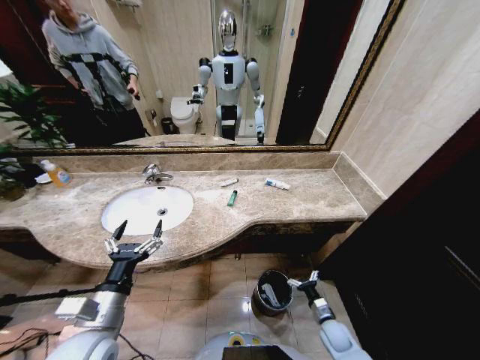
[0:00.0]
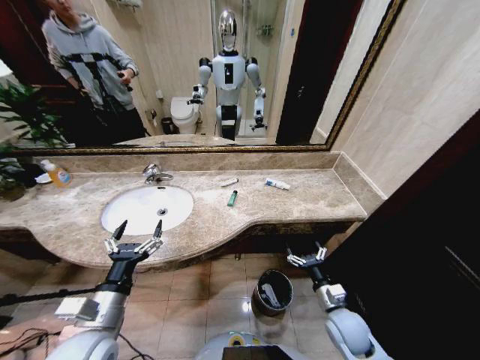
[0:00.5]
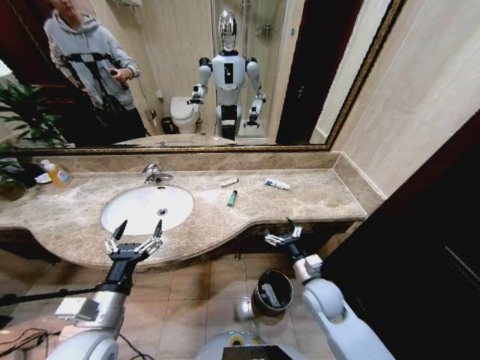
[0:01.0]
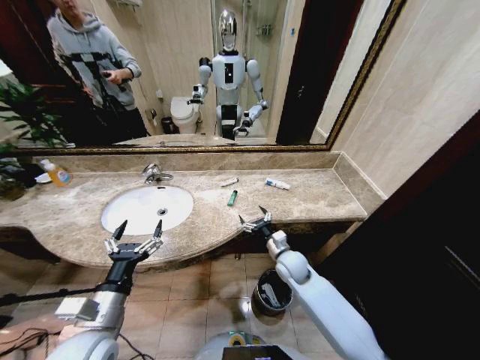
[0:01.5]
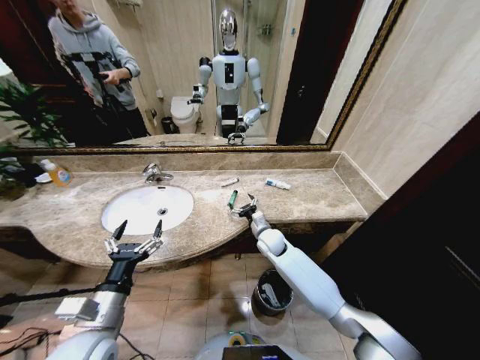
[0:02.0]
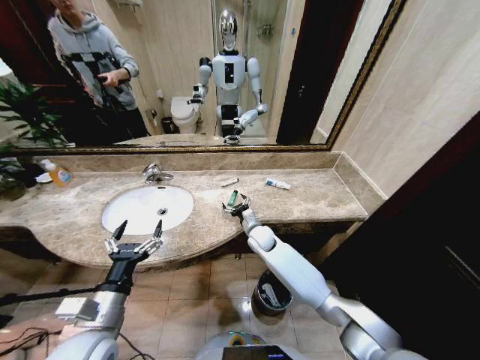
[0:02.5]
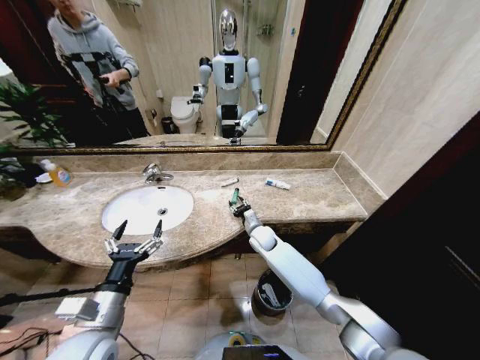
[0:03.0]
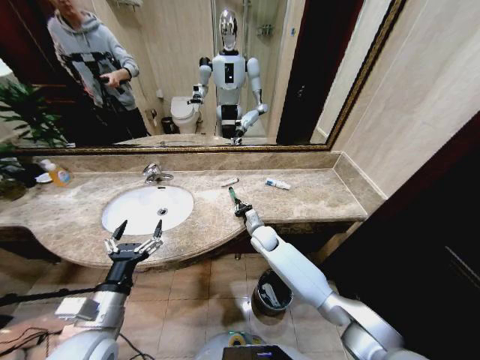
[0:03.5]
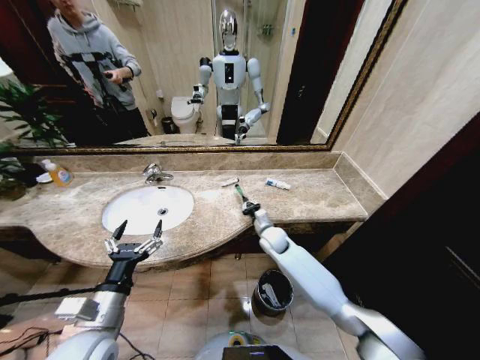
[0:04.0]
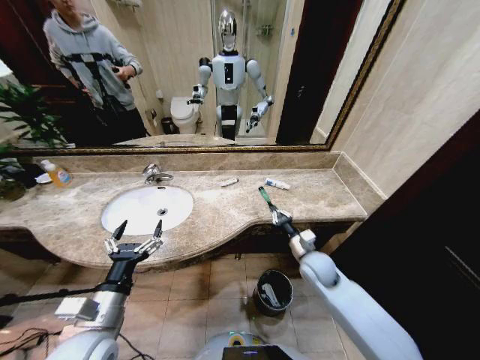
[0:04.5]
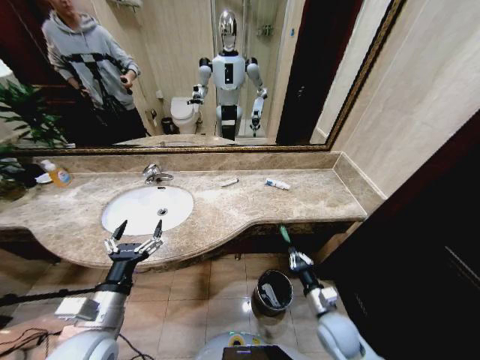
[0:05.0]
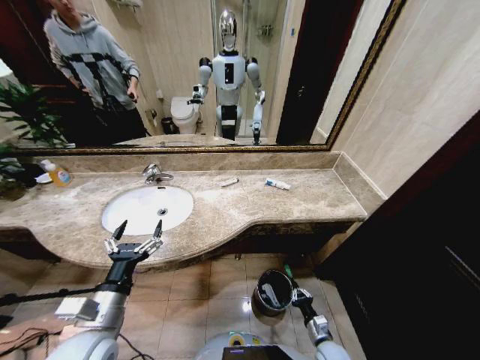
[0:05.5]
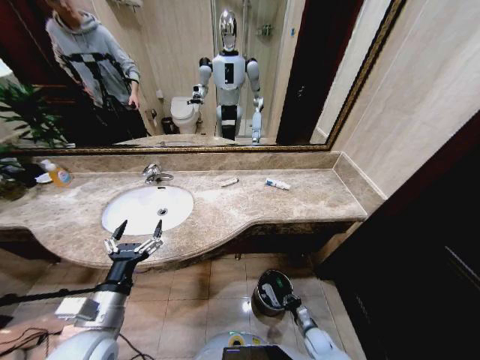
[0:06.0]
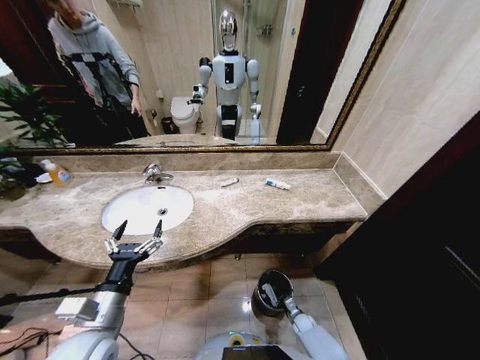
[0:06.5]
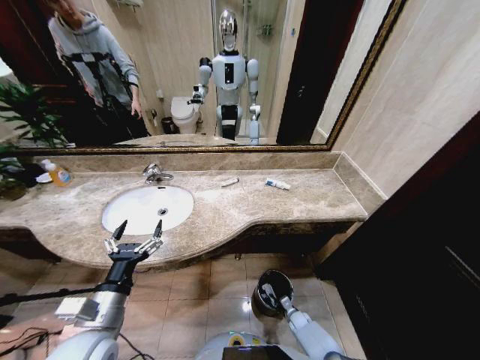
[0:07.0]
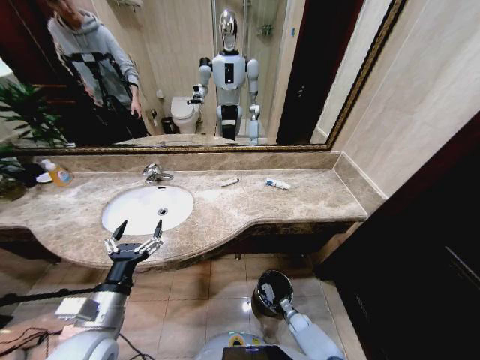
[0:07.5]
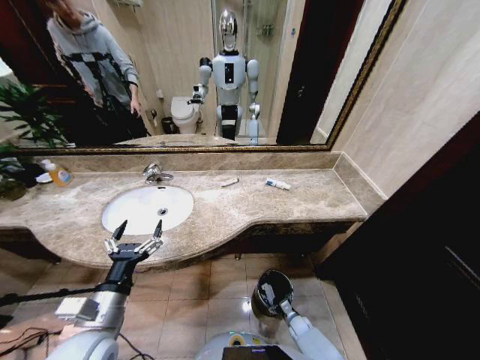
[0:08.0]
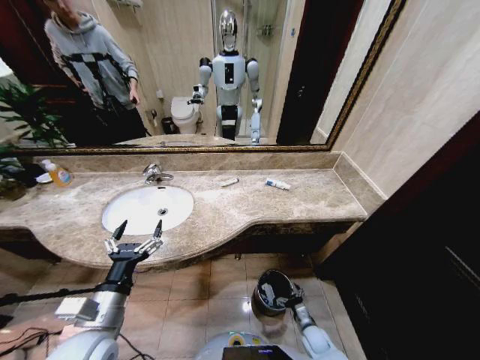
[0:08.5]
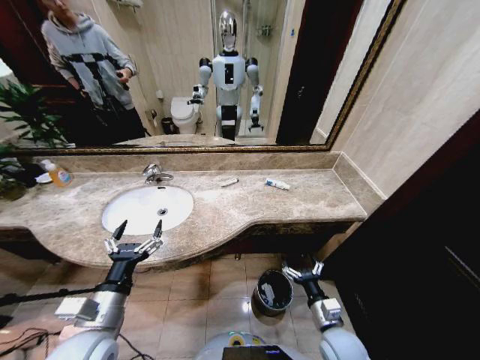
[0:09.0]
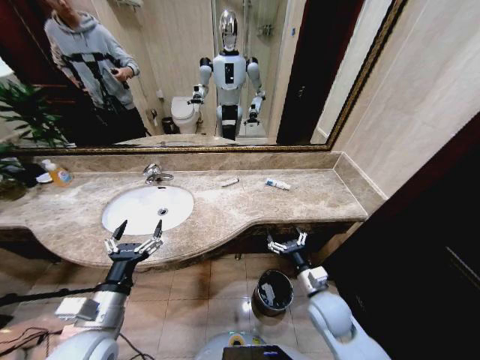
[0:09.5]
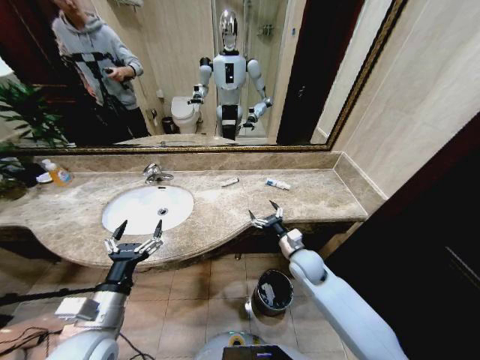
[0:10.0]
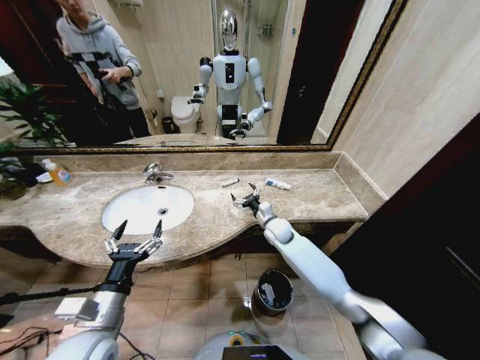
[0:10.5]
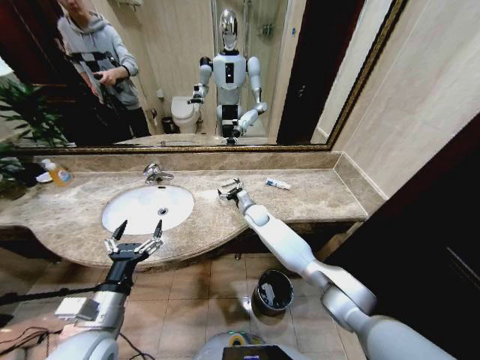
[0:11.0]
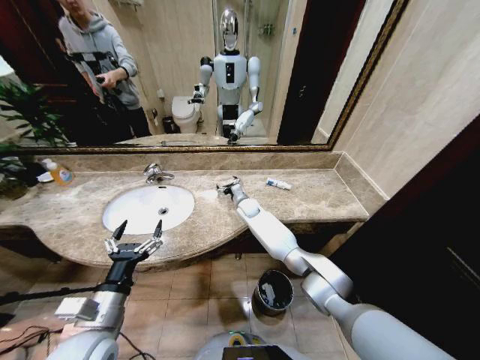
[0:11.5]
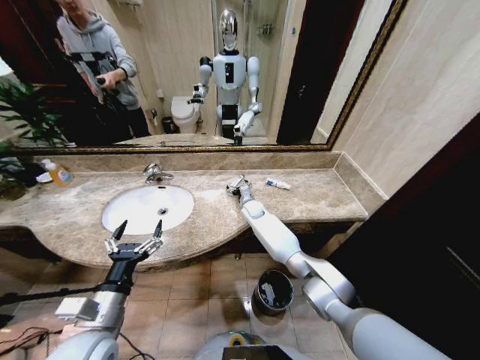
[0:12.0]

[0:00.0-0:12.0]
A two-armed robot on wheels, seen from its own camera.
Task of the whole recording: Pick up the trash from the sink and place it in the trash bin.
0:00.0 to 0:02.0: The right gripper shifts roughly 40 cm forward, upward and to the left.
0:02.0 to 0:04.0: The right gripper closes up.
0:04.0 to 0:06.0: The right gripper goes roughly 40 cm downward, backward and to the right.
0:06.0 to 0:08.0: The right gripper goes approximately 5 cm downward, and opens.
0:08.0 to 0:10.0: The right gripper heads upward, covering approximately 35 cm.
0:10.0 to 0:12.0: The right gripper heads forward and to the left, covering about 30 cm.

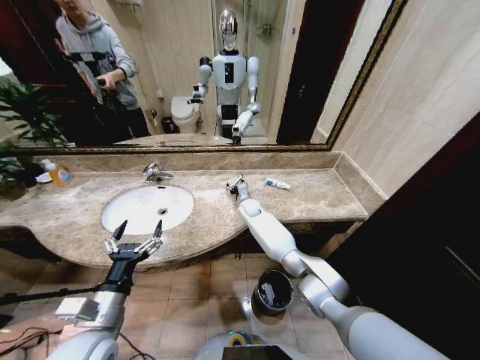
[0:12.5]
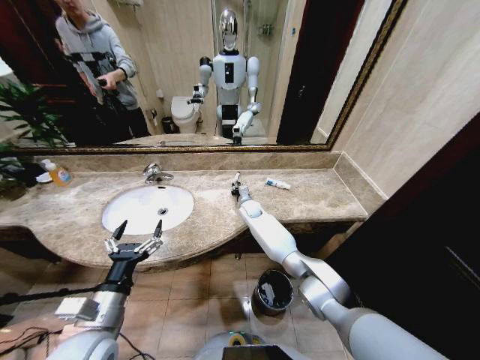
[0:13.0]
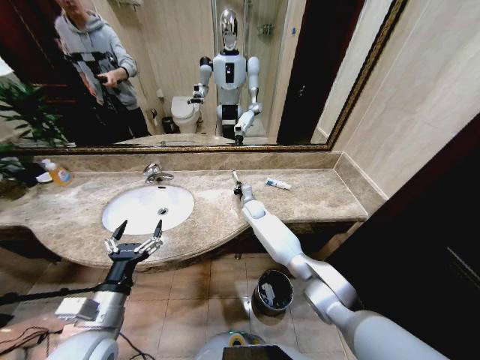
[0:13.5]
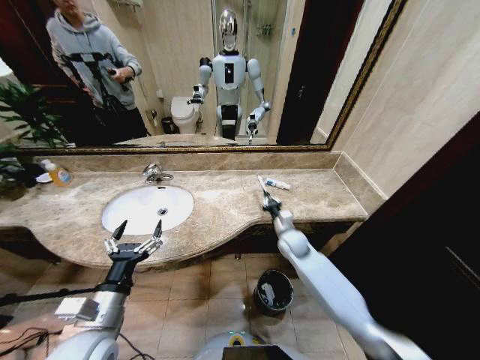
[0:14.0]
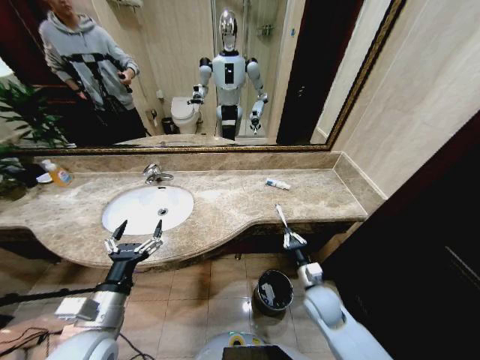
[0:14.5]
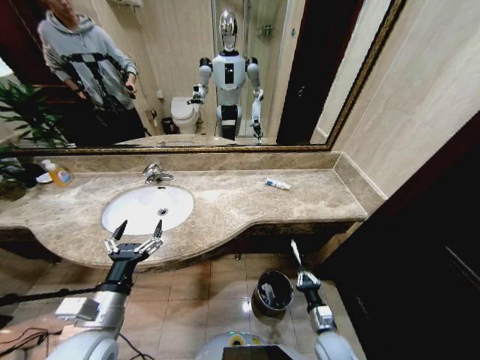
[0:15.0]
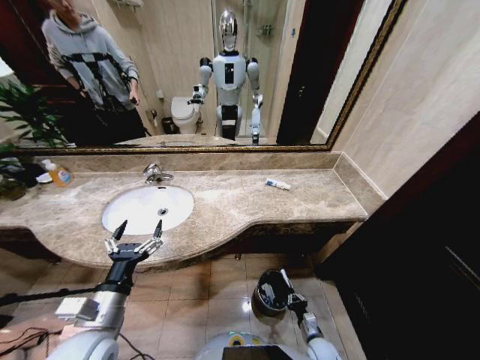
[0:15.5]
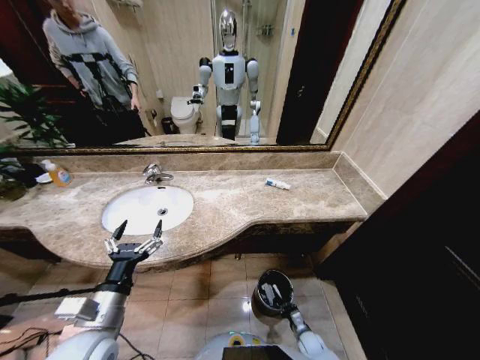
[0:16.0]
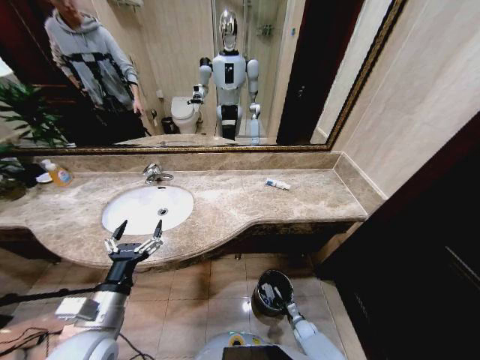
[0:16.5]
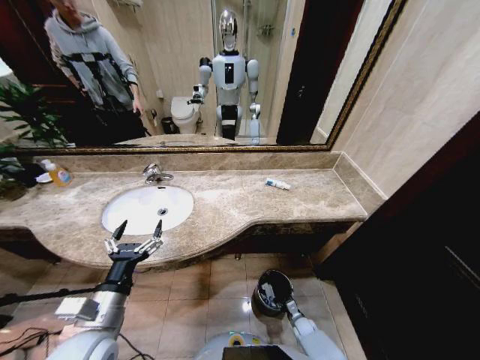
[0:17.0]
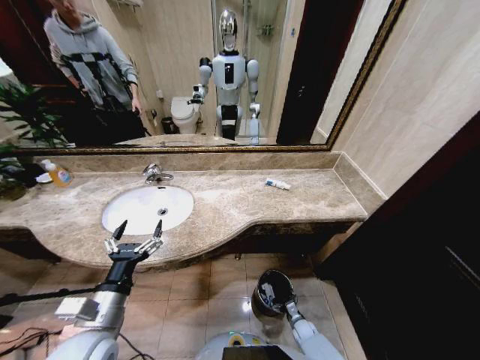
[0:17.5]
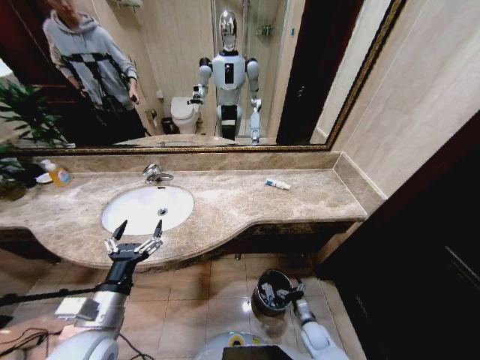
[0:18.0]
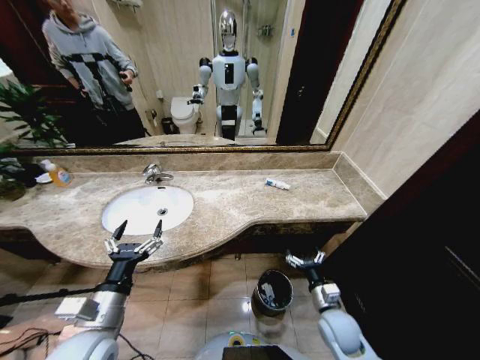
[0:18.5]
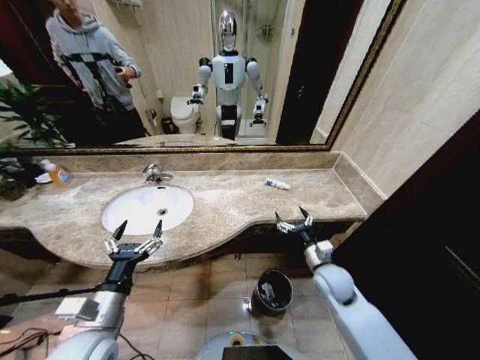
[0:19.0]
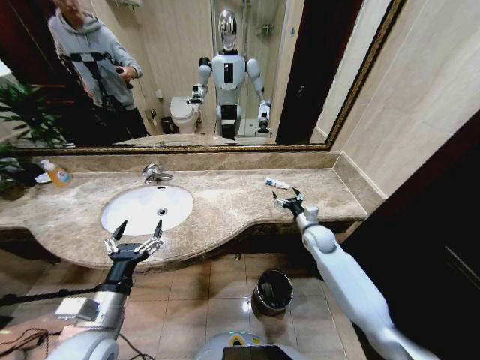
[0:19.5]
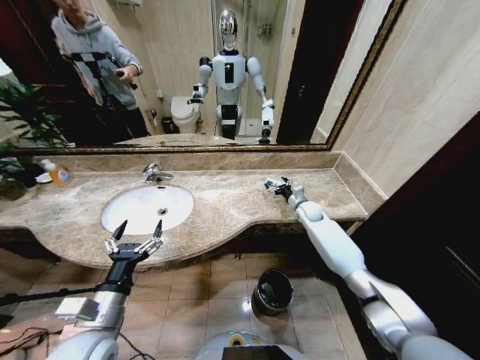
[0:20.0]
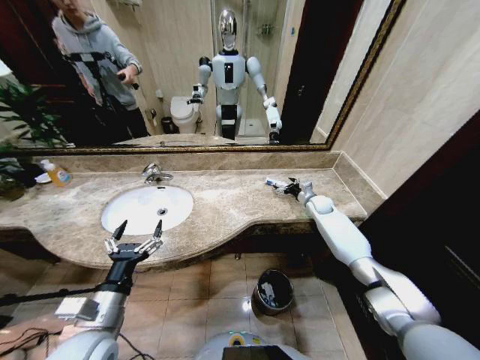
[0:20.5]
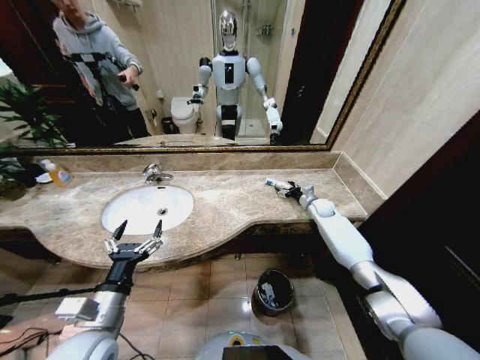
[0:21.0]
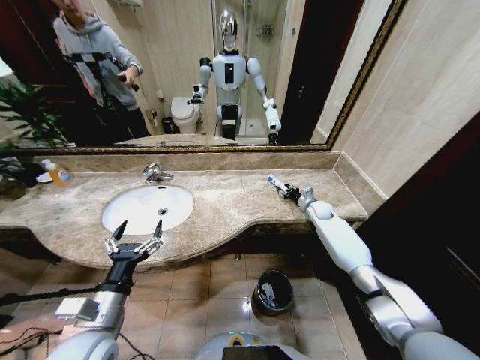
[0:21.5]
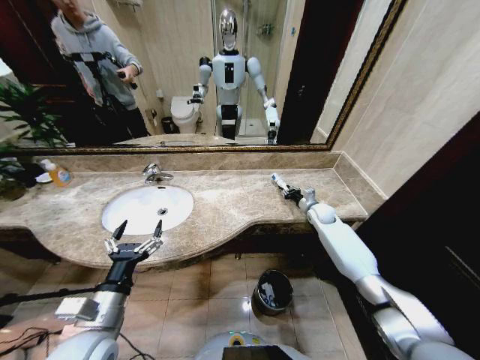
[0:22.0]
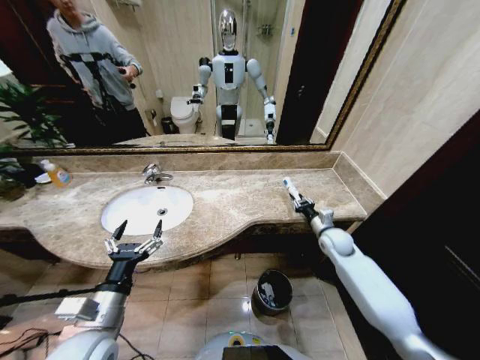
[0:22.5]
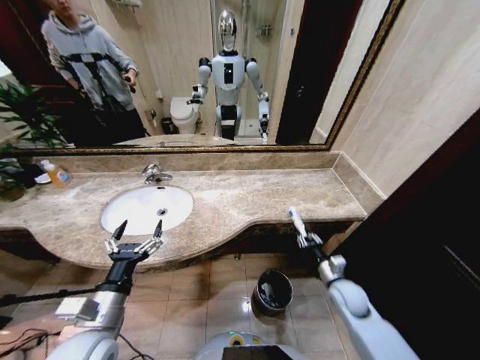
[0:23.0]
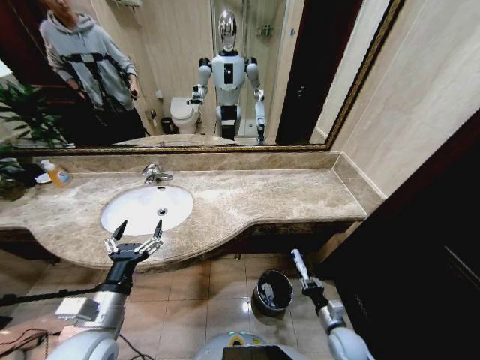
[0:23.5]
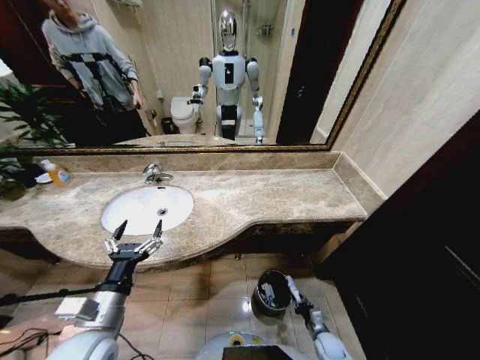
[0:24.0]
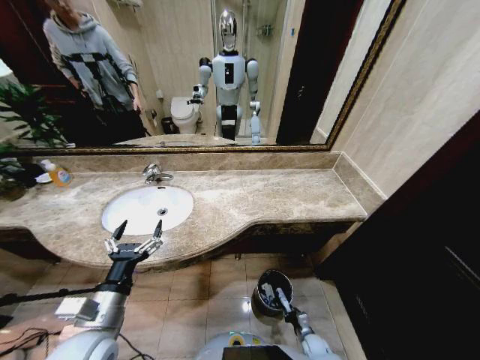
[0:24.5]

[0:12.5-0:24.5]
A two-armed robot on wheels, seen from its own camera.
Task of the whole recording: Pick up the trash from the sink and place it in the trash bin.
0:12.5 to 0:14.5: The right gripper goes roughly 40 cm backward and to the right, and closes up.
0:14.5 to 0:16.5: The right gripper heads downward, covering some 30 cm.
0:16.5 to 0:18.5: The right gripper heads upward, covering some 30 cm, and opens up.
0:18.5 to 0:20.5: The right gripper moves forward, approximately 40 cm.
0:20.5 to 0:22.5: The right gripper heads backward, covering approximately 15 cm, and closes its fingers.
0:22.5 to 0:24.5: The right gripper shifts approximately 40 cm downward and backward.

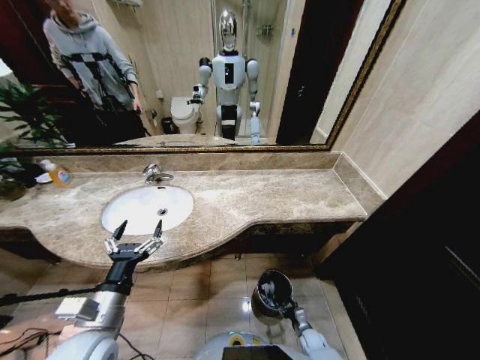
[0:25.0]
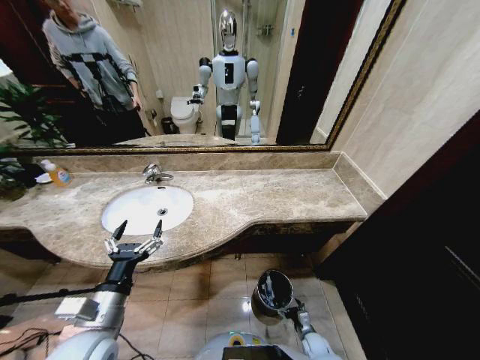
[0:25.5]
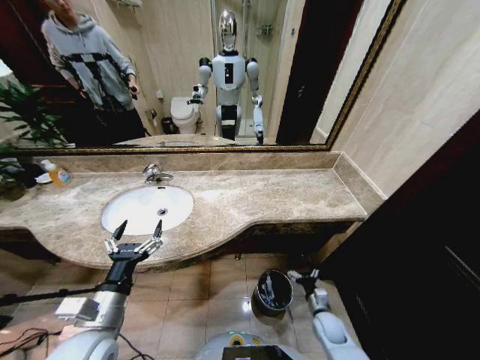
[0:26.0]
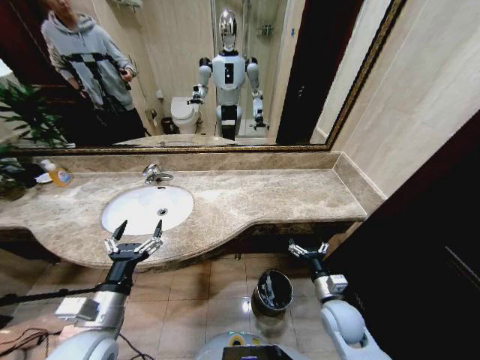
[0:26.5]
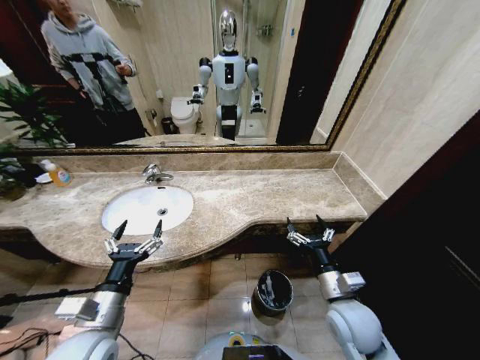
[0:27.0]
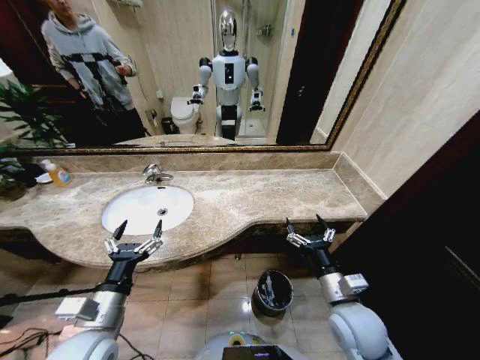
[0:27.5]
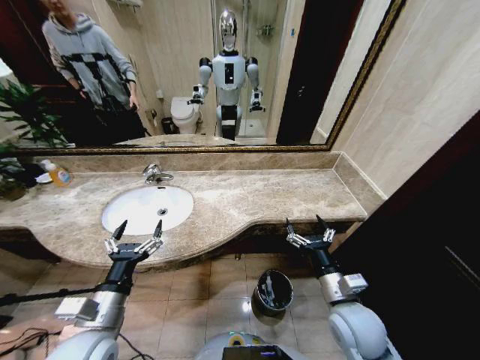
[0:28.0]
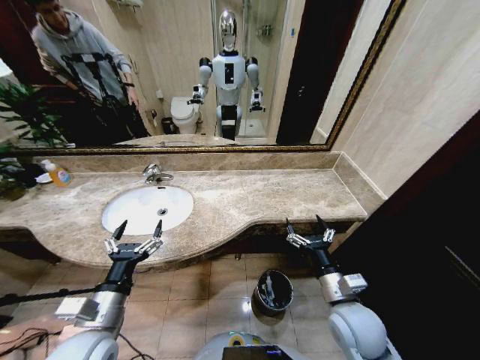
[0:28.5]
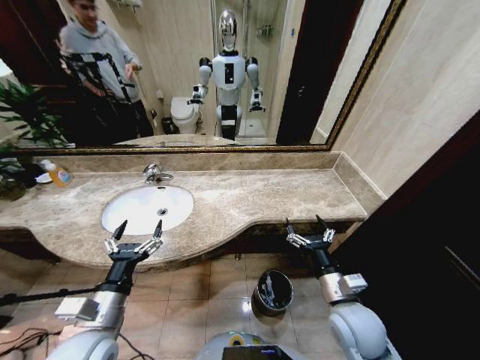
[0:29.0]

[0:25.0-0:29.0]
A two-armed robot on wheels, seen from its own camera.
Task of the whole recording: Pick up the trash from the sink and place it in the trash bin.
0:25.0 to 0:27.0: The right gripper travels upward by roughly 40 cm, and opens its fingers.
0:27.0 to 0:29.0: There are only small adjustments of the grippers.
